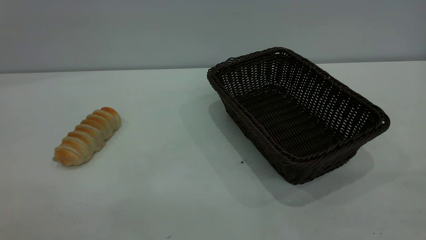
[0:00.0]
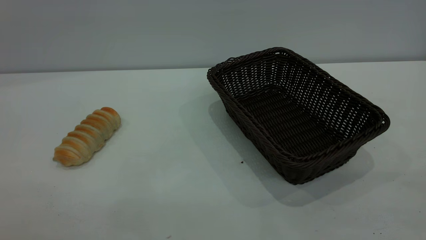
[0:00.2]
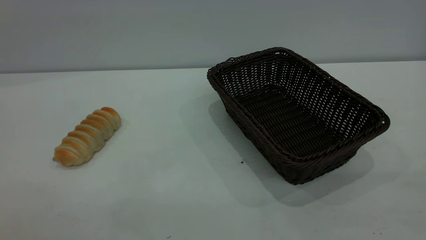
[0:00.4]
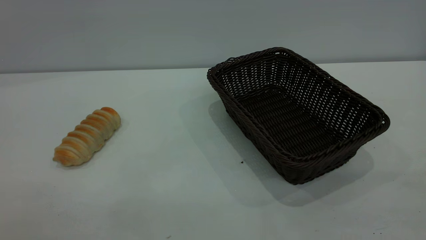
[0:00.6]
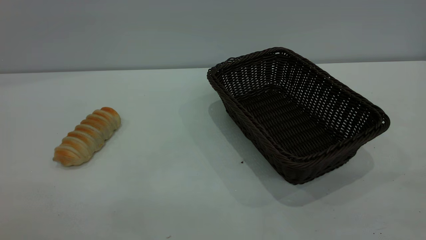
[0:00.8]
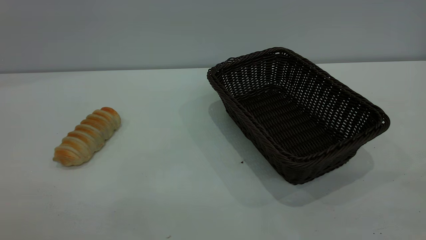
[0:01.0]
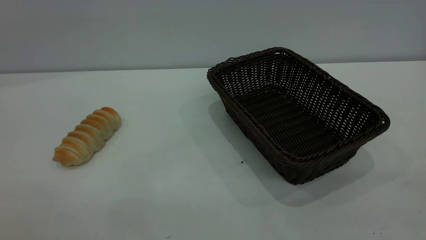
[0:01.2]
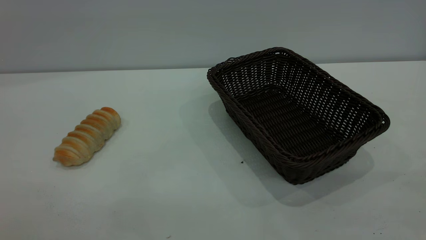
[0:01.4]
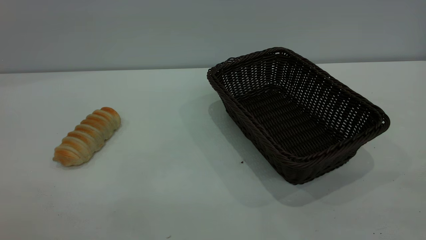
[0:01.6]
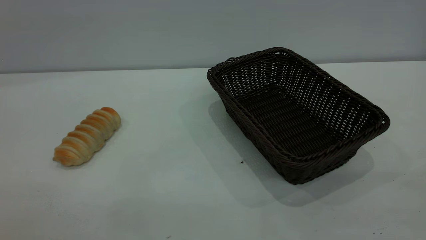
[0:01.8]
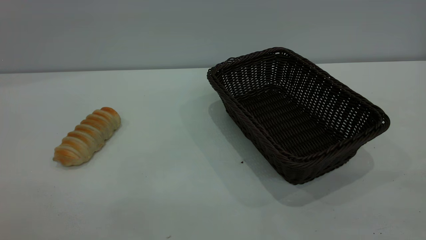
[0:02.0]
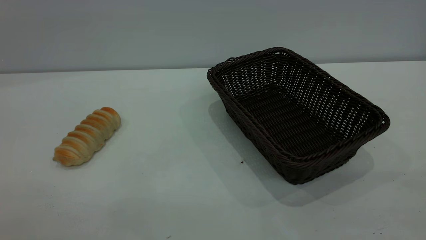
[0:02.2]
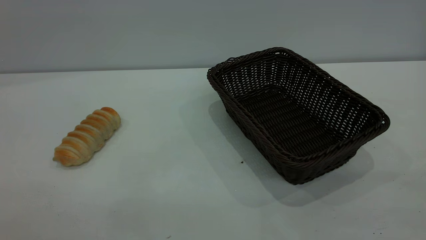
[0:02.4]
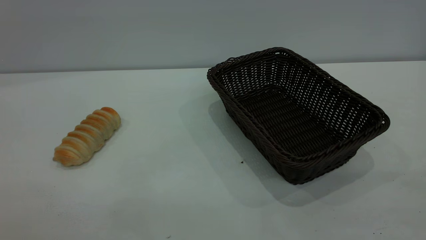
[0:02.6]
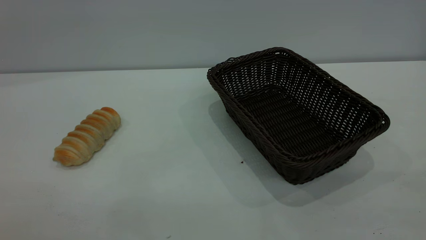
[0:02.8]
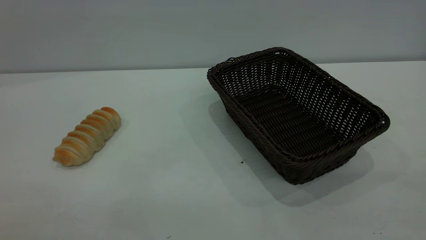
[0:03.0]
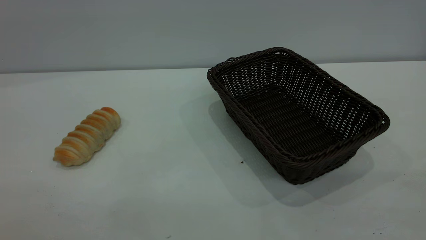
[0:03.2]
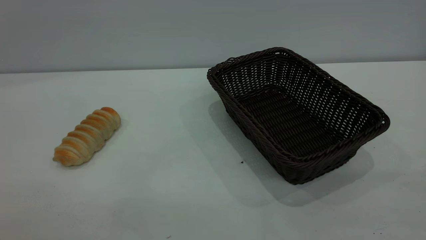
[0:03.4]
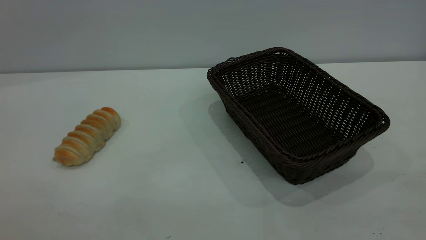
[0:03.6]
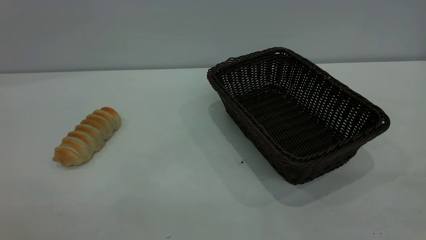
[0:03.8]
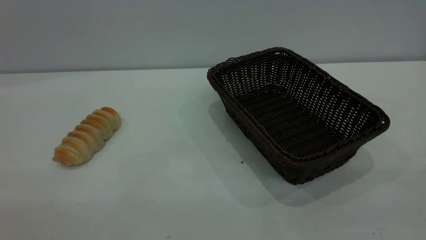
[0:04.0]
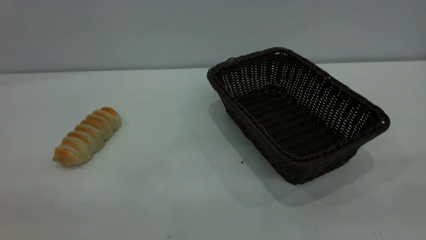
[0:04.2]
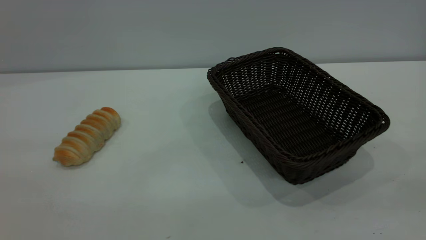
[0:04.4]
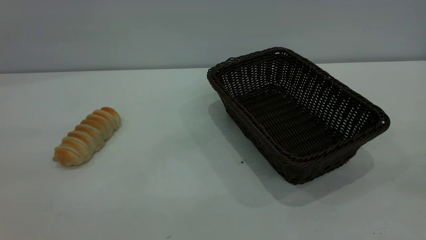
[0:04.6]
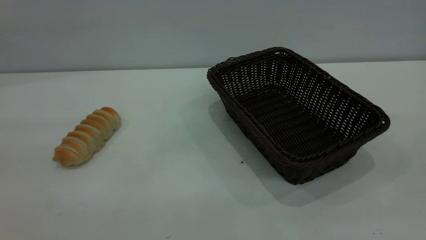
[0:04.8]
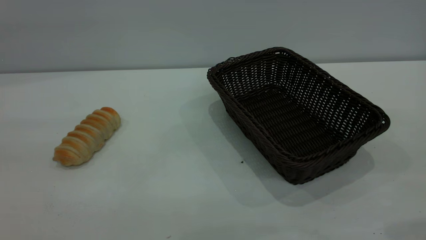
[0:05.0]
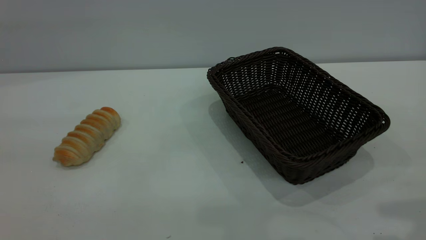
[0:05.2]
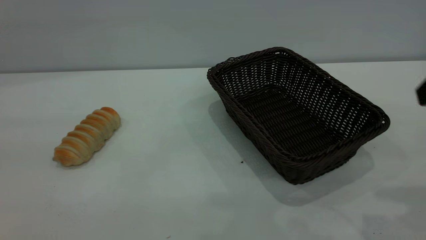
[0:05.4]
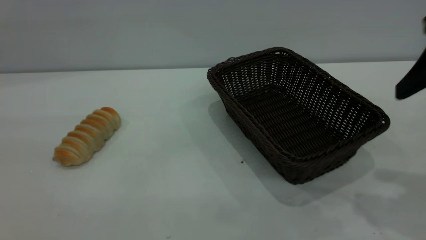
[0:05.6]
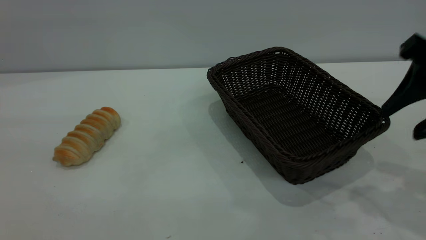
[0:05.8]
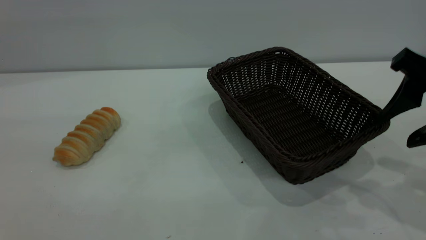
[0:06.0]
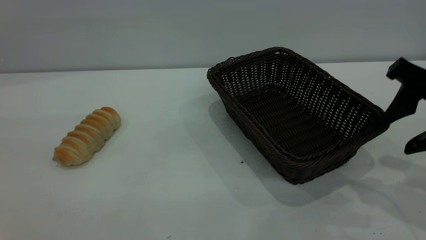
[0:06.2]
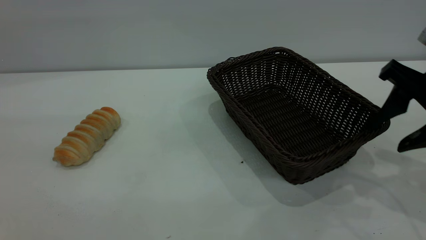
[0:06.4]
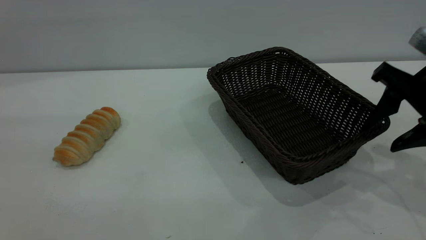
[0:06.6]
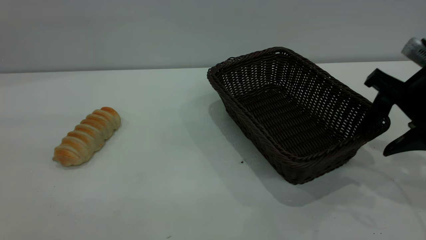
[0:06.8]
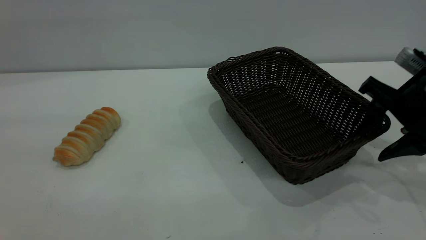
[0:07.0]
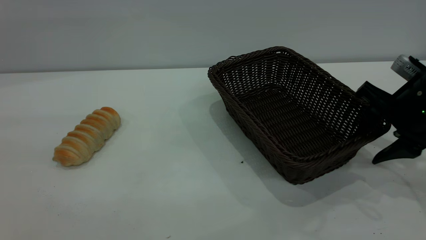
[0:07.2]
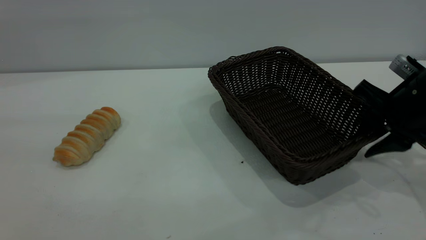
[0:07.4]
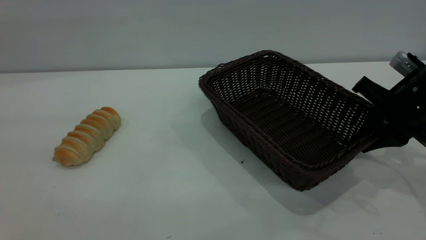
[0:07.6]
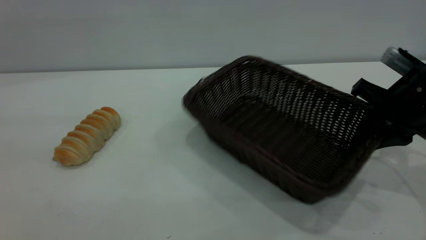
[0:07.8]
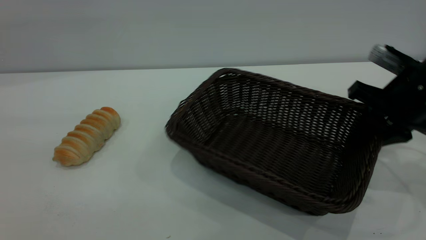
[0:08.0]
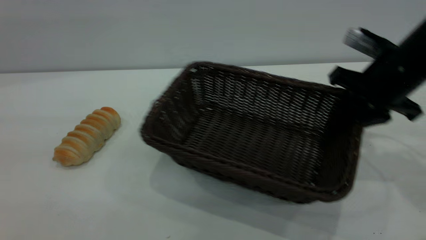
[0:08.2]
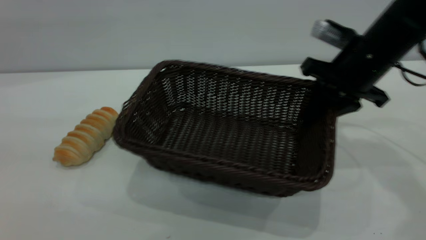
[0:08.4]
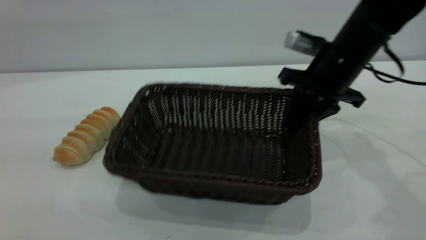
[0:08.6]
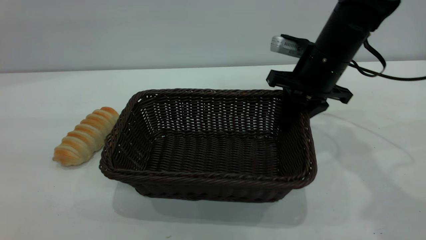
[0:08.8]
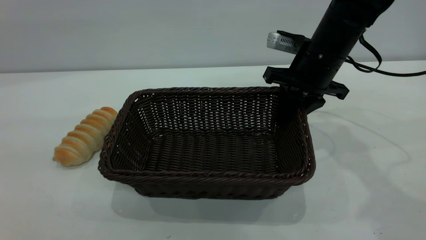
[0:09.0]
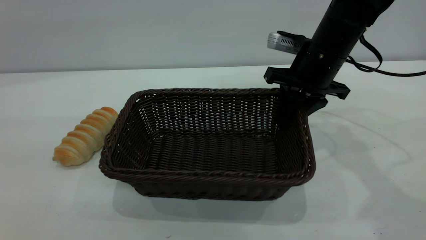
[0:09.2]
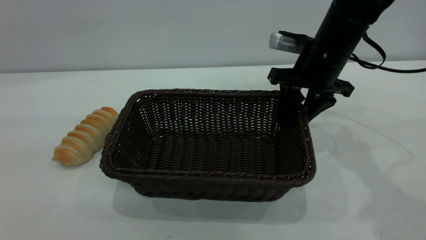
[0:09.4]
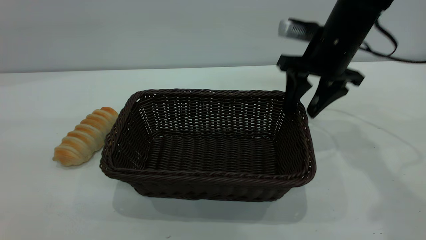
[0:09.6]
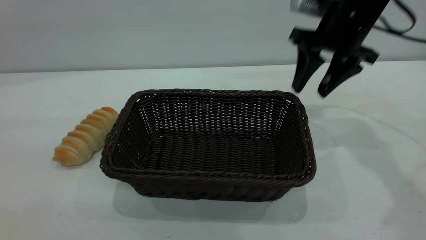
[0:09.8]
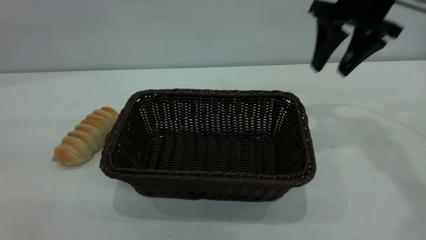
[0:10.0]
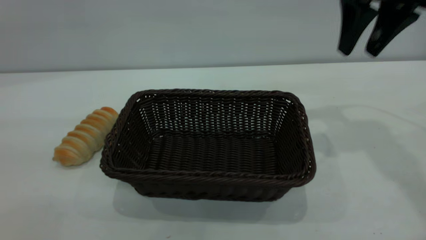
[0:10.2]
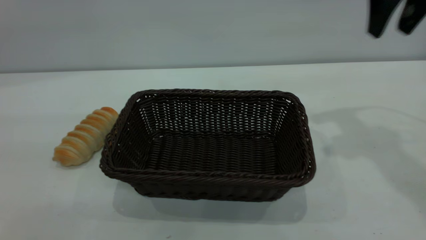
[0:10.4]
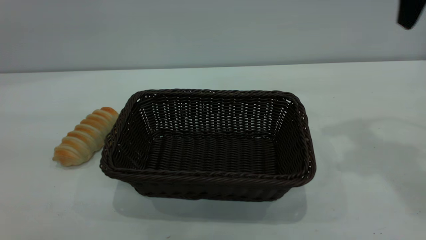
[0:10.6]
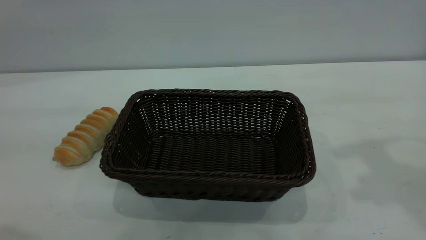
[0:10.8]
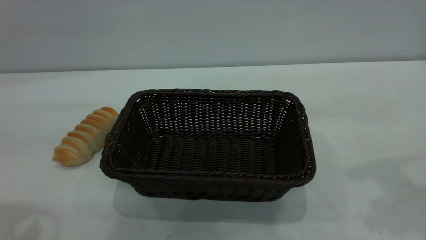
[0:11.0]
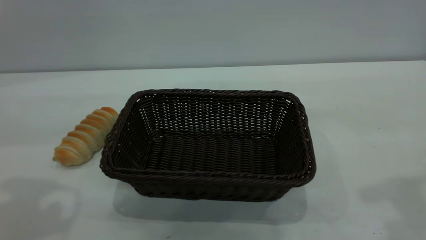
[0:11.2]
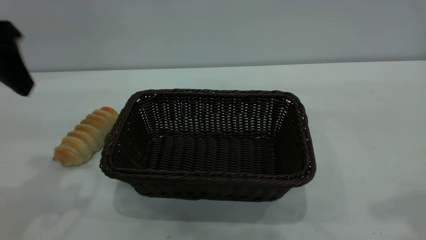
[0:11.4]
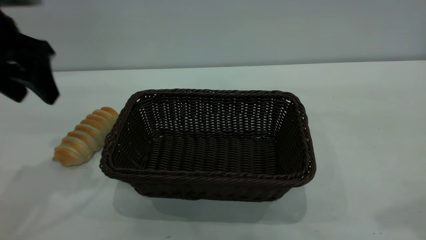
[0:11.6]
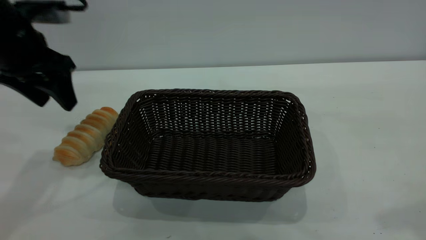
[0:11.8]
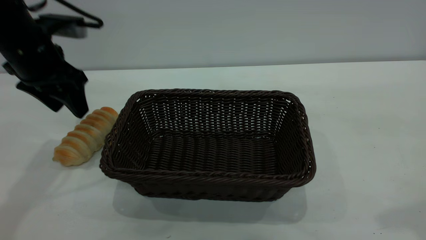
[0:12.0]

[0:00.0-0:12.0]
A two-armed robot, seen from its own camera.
Task of the whole recording: One hand grasps the black basket and places it in the middle of the table, while the other hand picks up the long bread and puts it into the black basket.
Step, 0:00.0 to 0:09.6: Move the basket to the center of view.
0:00.0 to 0:03.0: The two grippers keep their place.
0:04.4 to 0:06.0: The right gripper moves forward and downward, approximately 25 cm.
0:06.0 to 0:07.6: The right gripper goes roughly 10 cm downward and forward, and closes its fingers.
0:07.6 to 0:09.0: The right gripper moves to the left and forward, roughly 15 cm.
0:09.0 to 0:10.4: The right gripper heads upward and to the right, covering roughly 20 cm, and opens.
0:10.4 to 0:12.0: The left gripper shifts roughly 35 cm forward and downward; the right gripper heads backward, covering roughly 20 cm.

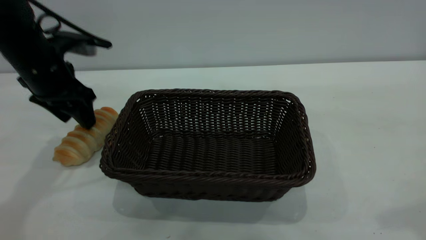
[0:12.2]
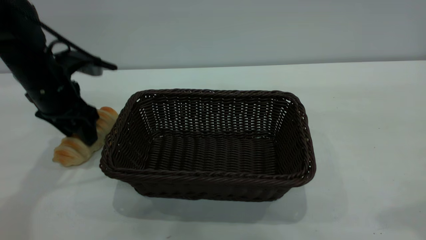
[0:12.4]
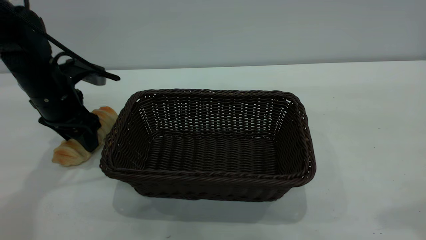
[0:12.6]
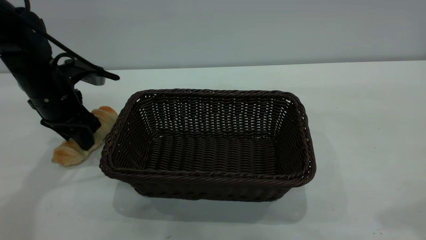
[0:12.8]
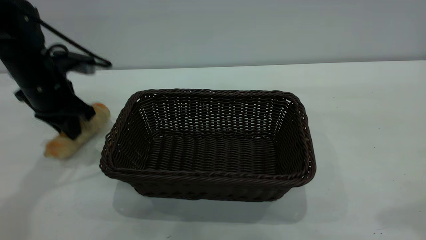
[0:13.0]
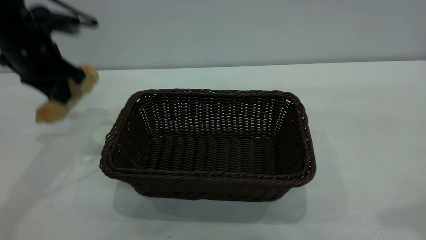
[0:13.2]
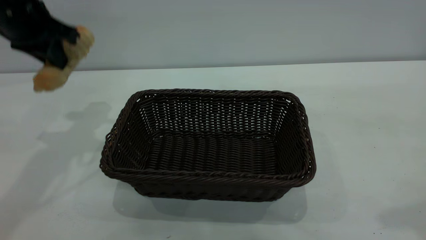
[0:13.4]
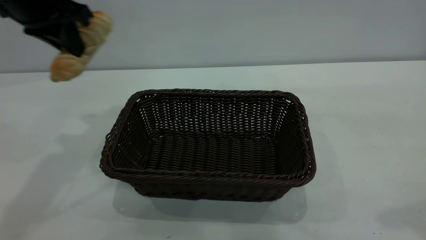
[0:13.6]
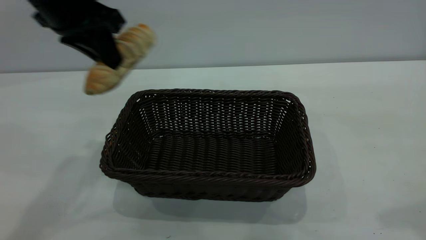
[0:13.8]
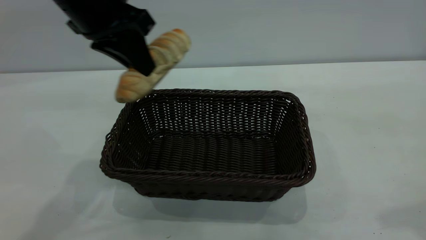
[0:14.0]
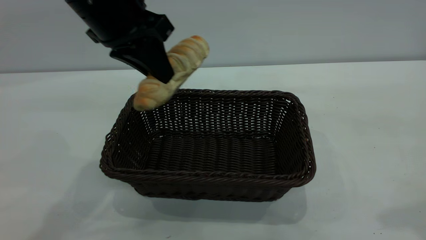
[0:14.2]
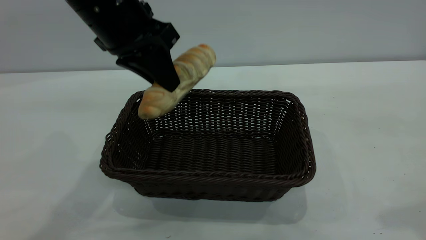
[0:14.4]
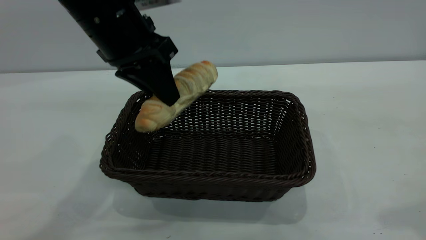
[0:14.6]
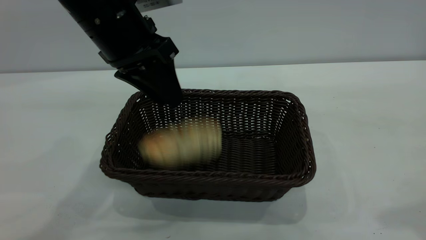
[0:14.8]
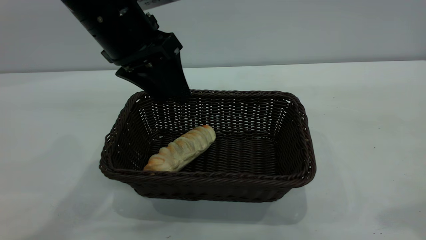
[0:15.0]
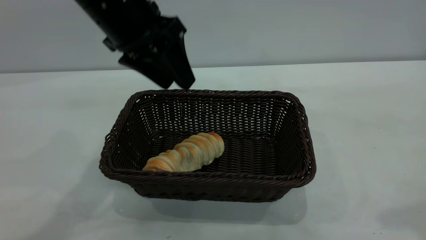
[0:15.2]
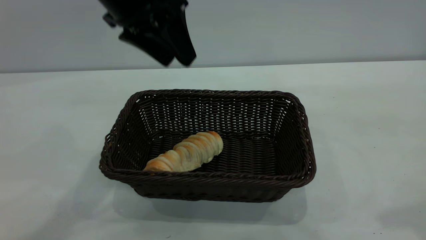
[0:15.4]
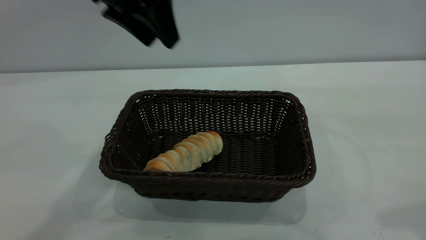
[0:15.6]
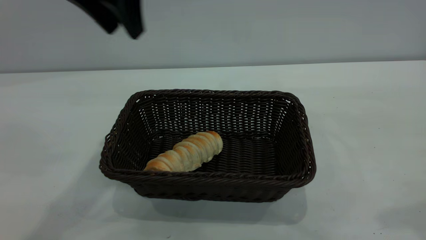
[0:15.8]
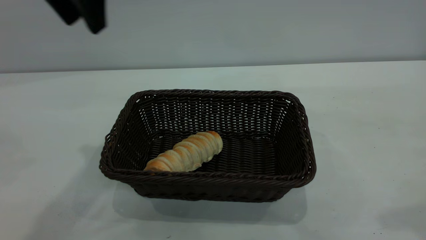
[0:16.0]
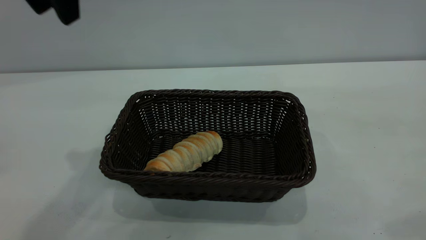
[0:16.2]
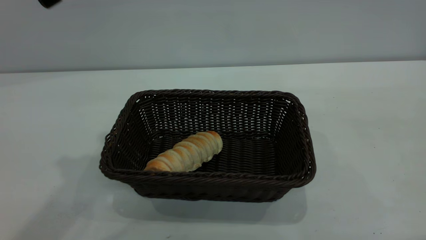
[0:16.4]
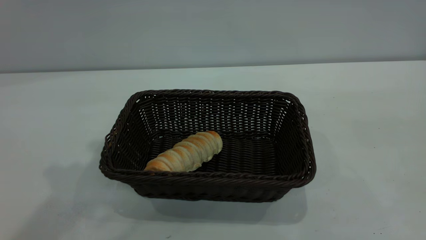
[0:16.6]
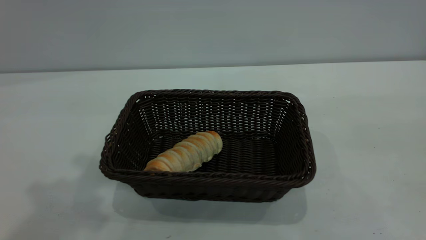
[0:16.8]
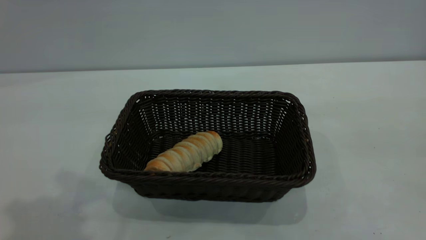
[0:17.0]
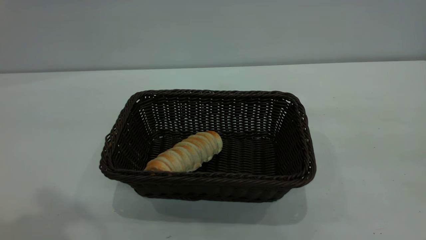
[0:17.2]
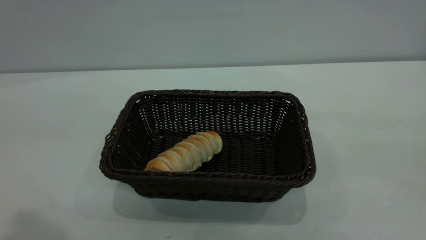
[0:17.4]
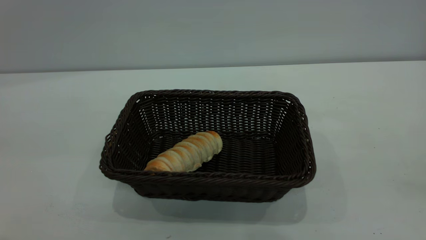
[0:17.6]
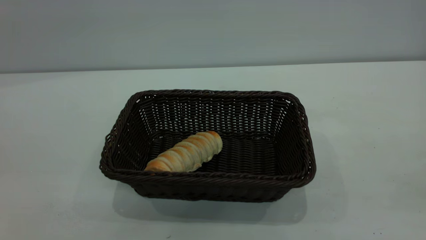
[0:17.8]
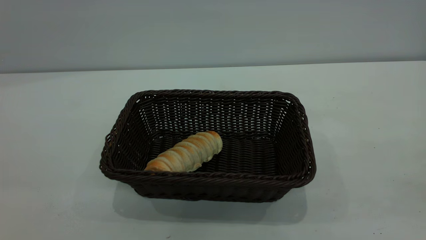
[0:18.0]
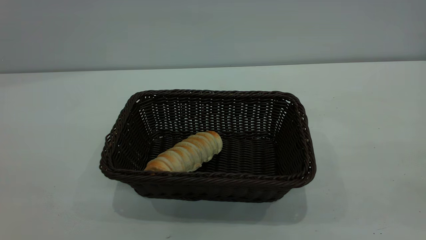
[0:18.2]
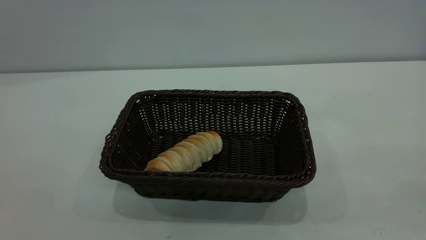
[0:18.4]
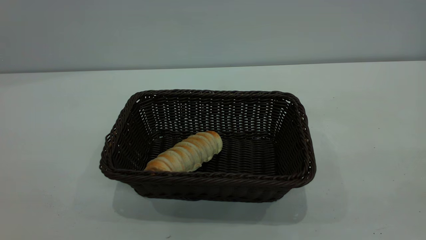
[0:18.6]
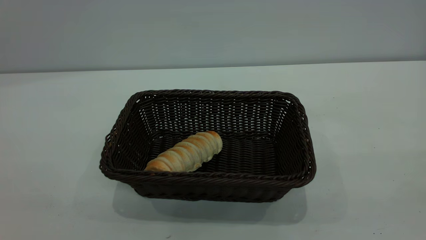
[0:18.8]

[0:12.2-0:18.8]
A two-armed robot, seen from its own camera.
Task of the whole recording: One hand grasps the black basket and places it in the middle of the table, while the other hand picks up the long bread and puts it into the black basket.
Step, 0:13.2 to 0:15.2: place the bread into the basket.
0:12.2 to 0:13.8: The left gripper shifts about 15 cm upward and to the right, and closes its fingers.
0:13.8 to 0:15.4: The left gripper heads to the right, covering roughly 5 cm, and opens up.
0:15.4 to 0:17.2: The right gripper is displaced backward and upward by roughly 15 cm, while the left gripper is displaced backward, upward and to the left by about 25 cm.
